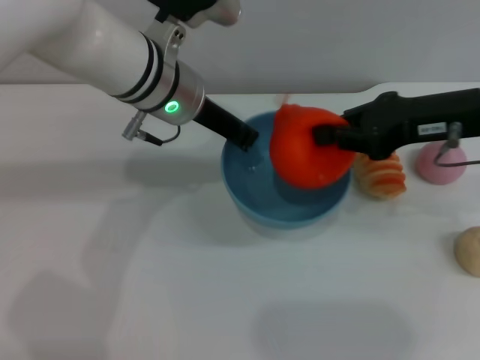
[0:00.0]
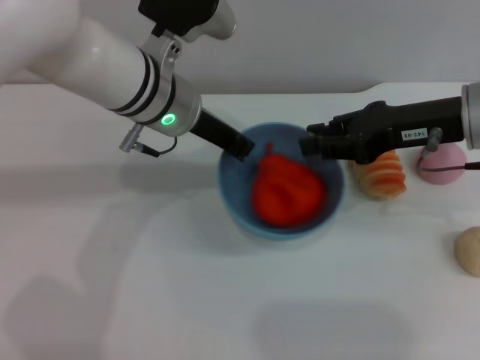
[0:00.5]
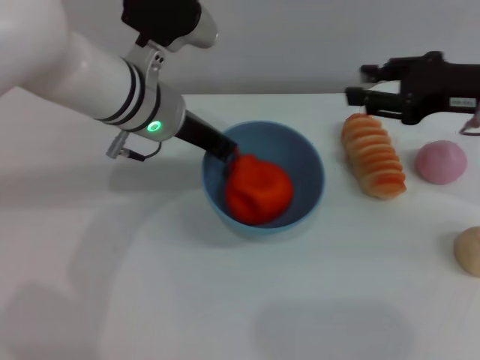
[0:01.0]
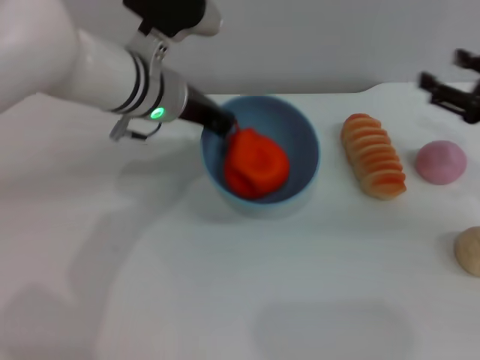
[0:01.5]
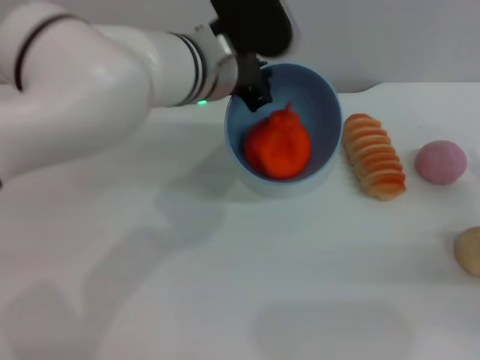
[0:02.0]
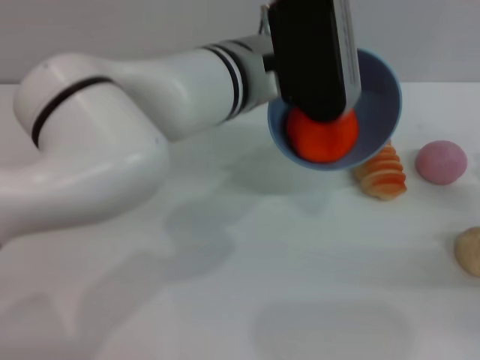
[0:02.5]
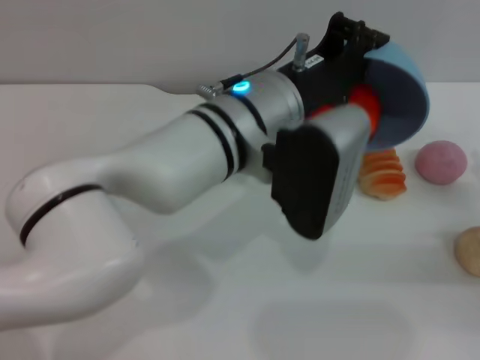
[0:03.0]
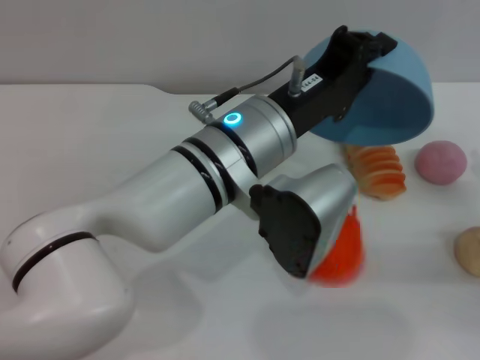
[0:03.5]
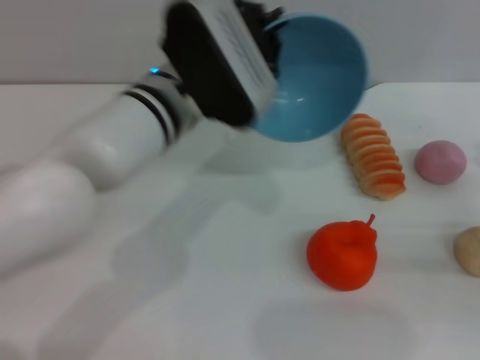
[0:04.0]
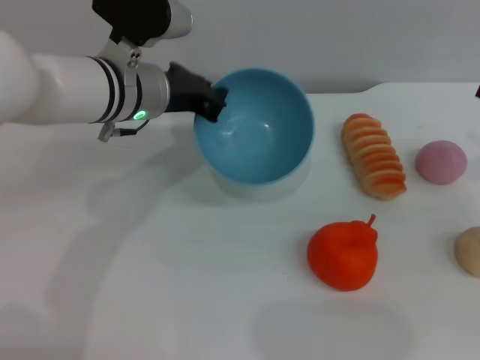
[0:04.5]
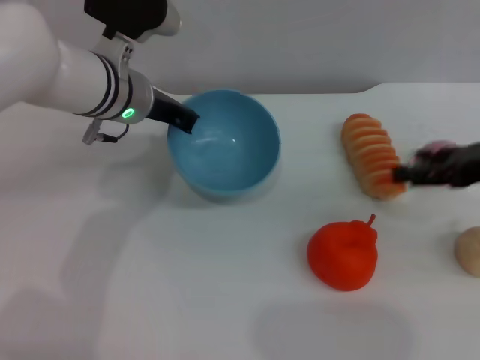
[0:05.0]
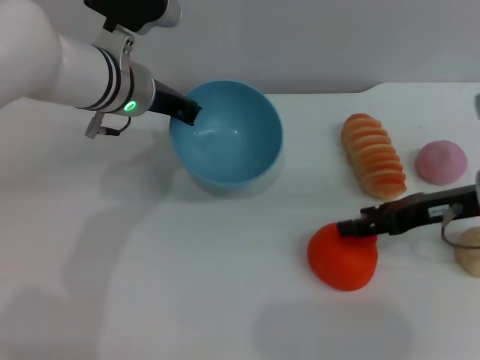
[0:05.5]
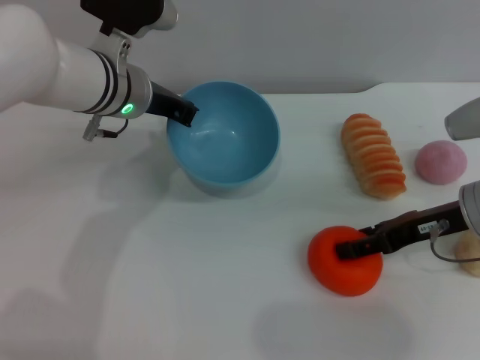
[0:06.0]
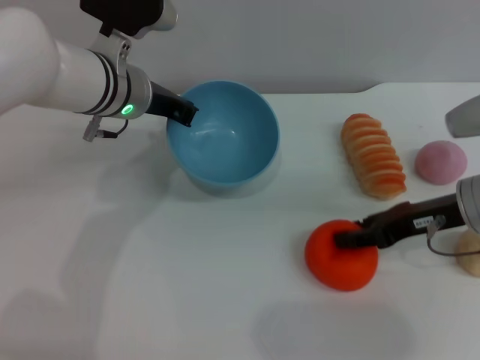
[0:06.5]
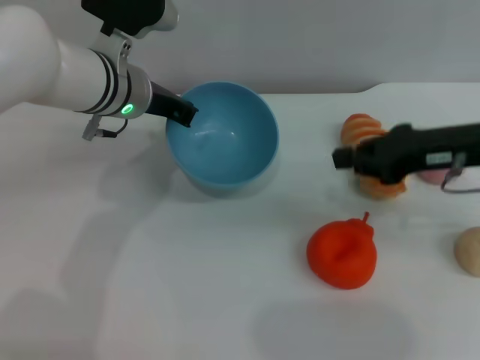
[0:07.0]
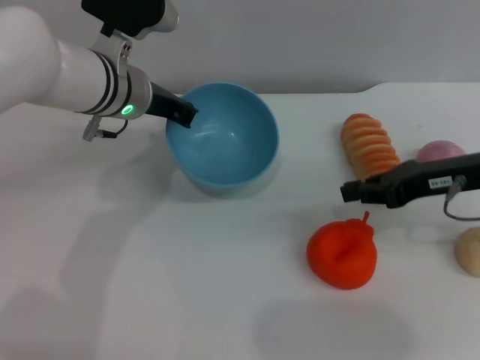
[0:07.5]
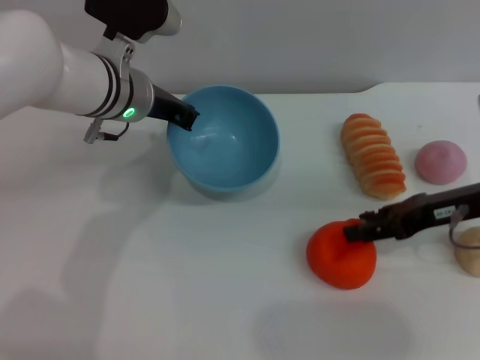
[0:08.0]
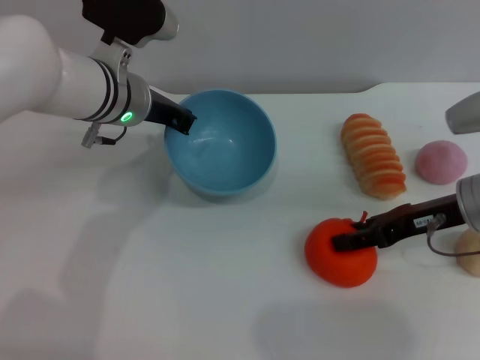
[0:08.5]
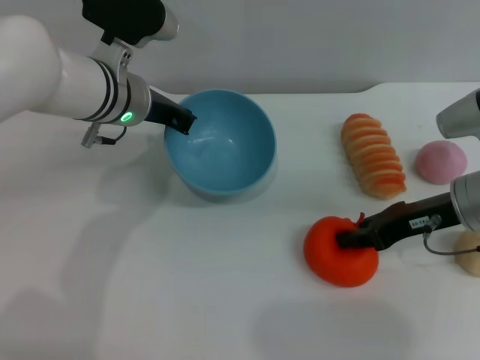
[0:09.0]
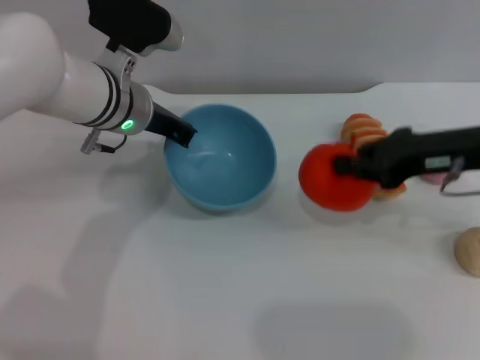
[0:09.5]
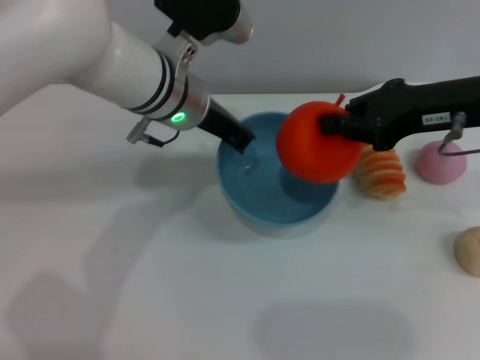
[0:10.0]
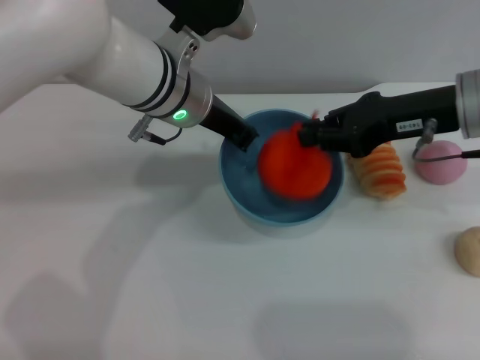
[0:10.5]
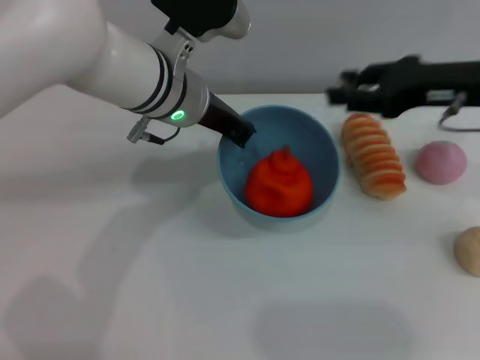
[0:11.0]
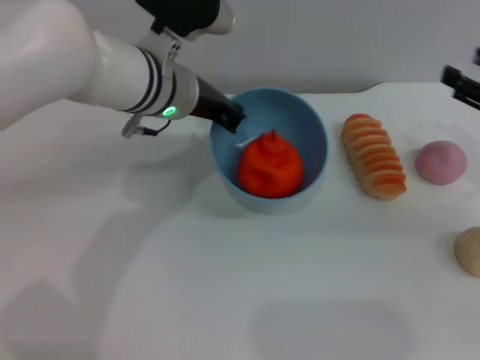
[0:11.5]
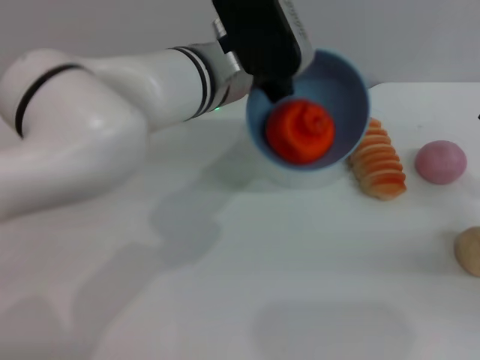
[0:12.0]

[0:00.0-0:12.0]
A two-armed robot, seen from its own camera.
Task of the whole recording: put the orange into the blue bowl and pour it out repeatedly.
Step, 0:00.0 to 0:01.5: Place the orange into the bowl.
Step, 0:02.5 to 0:03.5: Pour the orange out of the bowl.
Step, 0:04.0 to 0:09.5: Pick up the orange with the right gripper.
Step, 0:10.0 to 0:11.0: Place the orange into the bowl.
0:00.0 to 0:02.0: The right gripper shifts about 20 cm downward, to the right and backward, and opens its fingers.
0:04.0 to 0:06.0: The left gripper moves forward and to the left, about 10 cm, while the right gripper travels to the left and forward by approximately 15 cm.
0:06.0 to 0:08.0: The right gripper closes its fingers.
0:08.0 to 0:10.0: The left gripper moves to the right, some 5 cm; the right gripper goes some 10 cm upward, and closes.
0:10.0 to 0:12.0: The right gripper shifts approximately 20 cm downward, to the right and backward, and opens up.

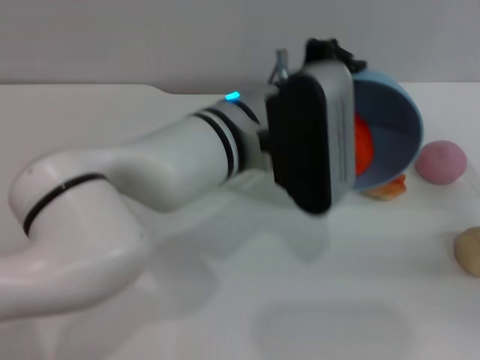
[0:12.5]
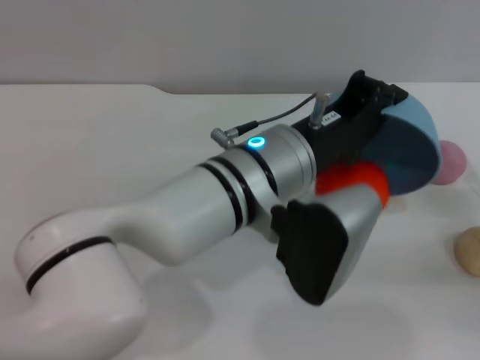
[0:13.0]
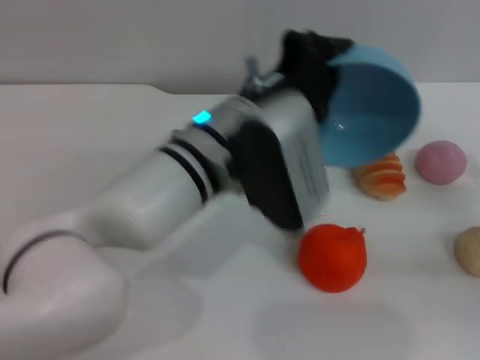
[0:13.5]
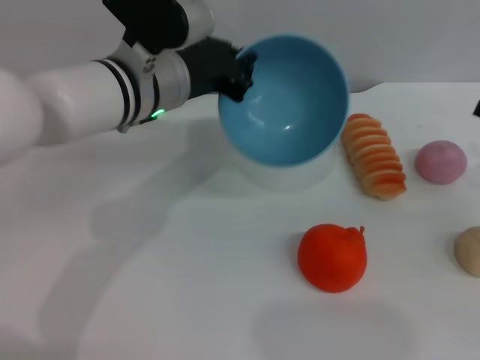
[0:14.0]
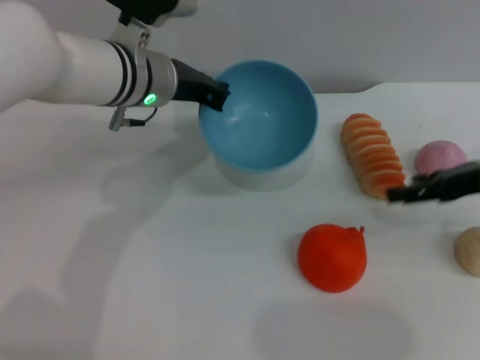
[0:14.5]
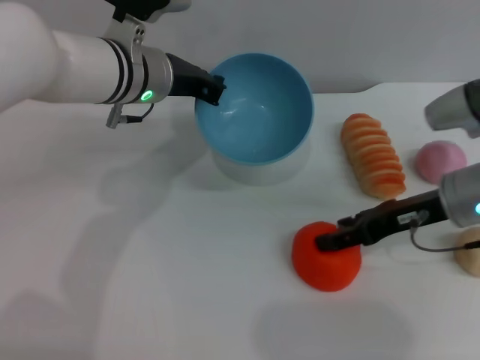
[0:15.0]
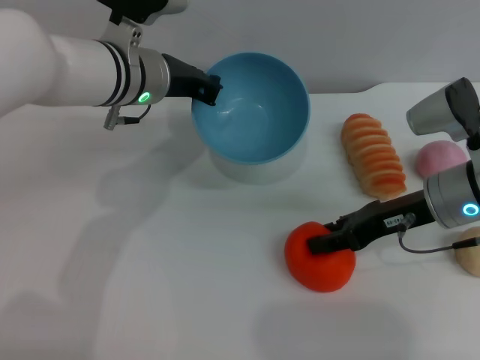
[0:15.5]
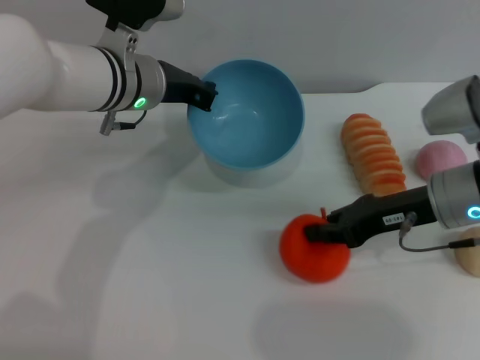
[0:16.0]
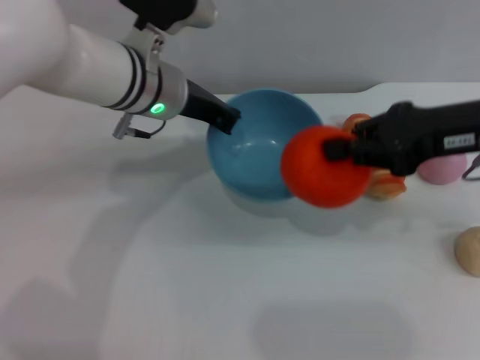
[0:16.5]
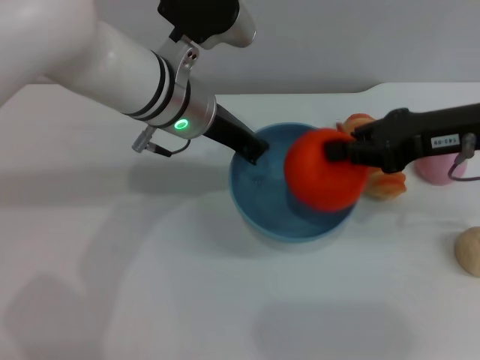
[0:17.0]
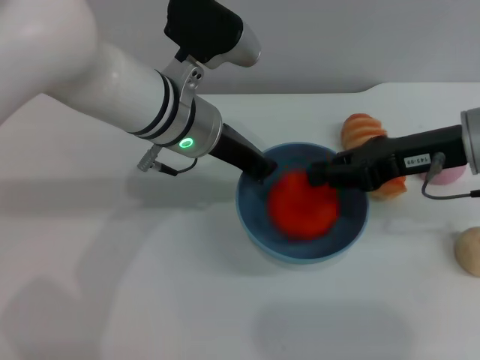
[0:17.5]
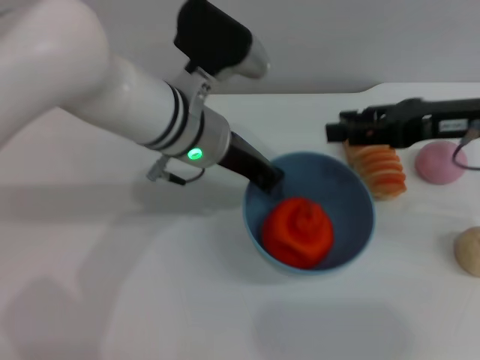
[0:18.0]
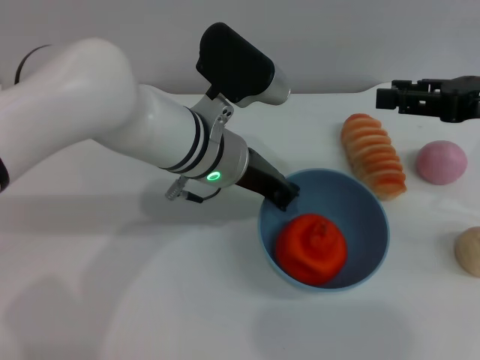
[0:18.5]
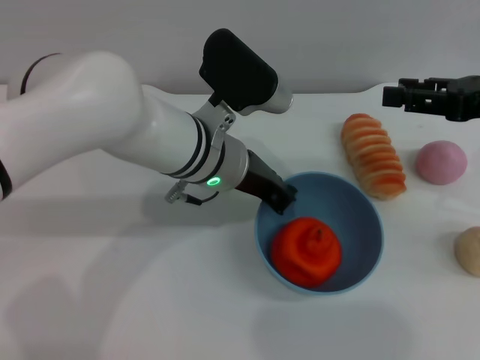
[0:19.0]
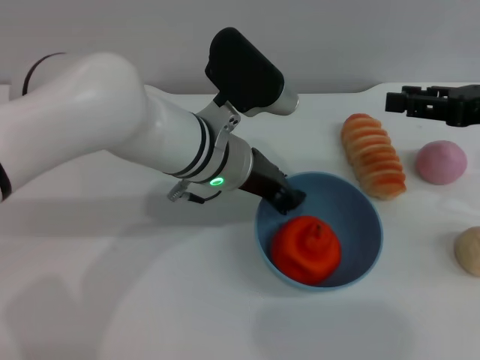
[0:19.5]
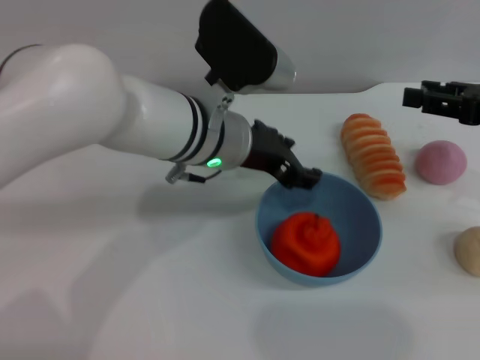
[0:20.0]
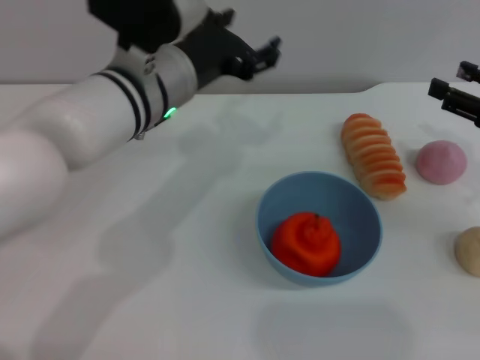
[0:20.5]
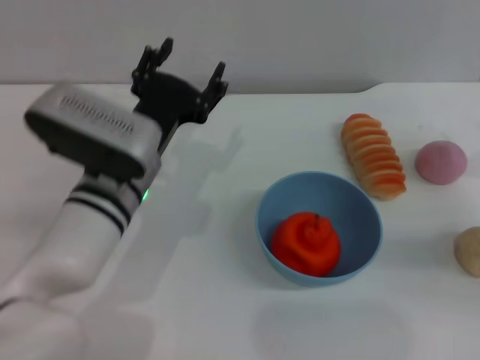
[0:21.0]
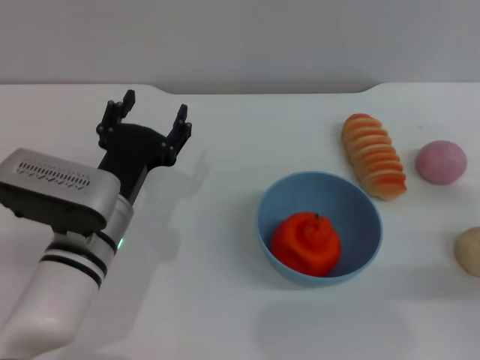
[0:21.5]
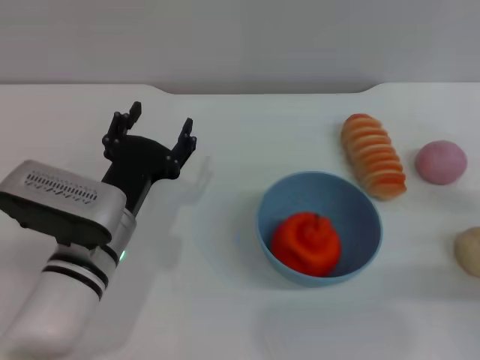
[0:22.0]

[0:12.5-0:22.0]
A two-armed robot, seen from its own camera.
Task of the whole recording: put the orange into the blue bowl and pour it out repeatedly.
Step, 0:13.5 to 0:16.0: Pick up the orange with the right gripper.
Step, 0:16.5 to 0:18.5: Place the orange into the bowl.
Step, 0:19.0 to 0:20.0: Place the bowl on the table.
0:12.5 to 0:14.5: The left gripper moves to the left and forward, roughly 15 cm, while the right gripper is displaced upward, forward and to the left by some 15 cm.
0:14.5 to 0:16.5: The right gripper goes some 10 cm upward and to the left, and closes.
0:16.5 to 0:18.0: The left gripper moves about 5 cm; the right gripper opens.
0:18.0 to 0:20.0: The left gripper opens up. The right gripper heads to the right, covering approximately 5 cm.
0:20.0 to 0:22.0: The left gripper heads downward, to the left and backward, covering approximately 15 cm, and opens, while the right gripper goes about 15 cm downward and backward.
